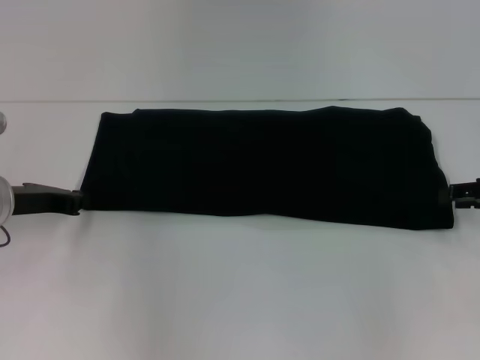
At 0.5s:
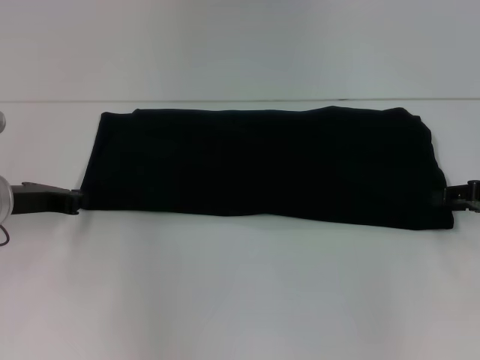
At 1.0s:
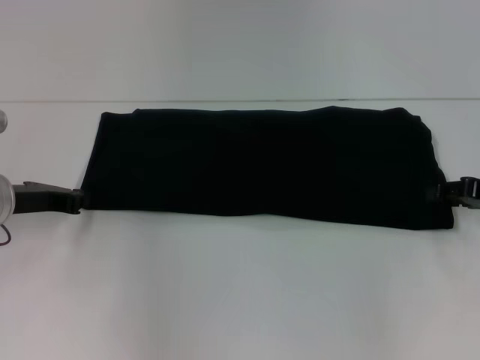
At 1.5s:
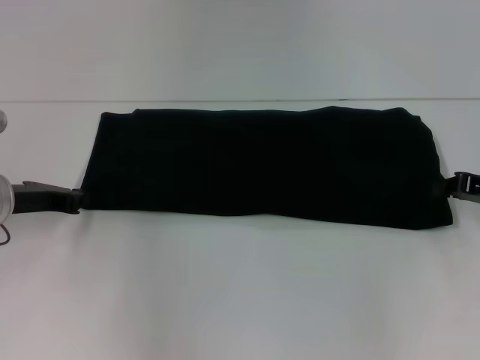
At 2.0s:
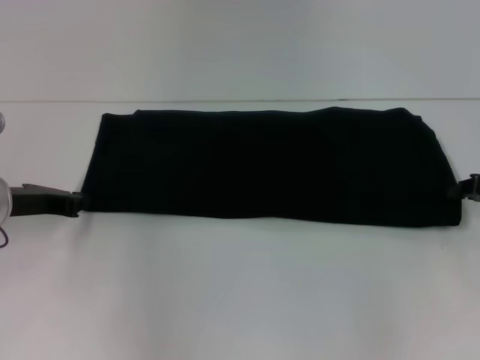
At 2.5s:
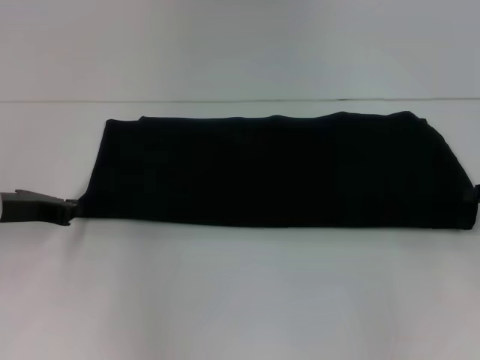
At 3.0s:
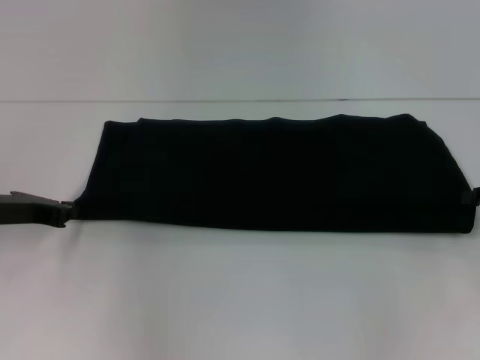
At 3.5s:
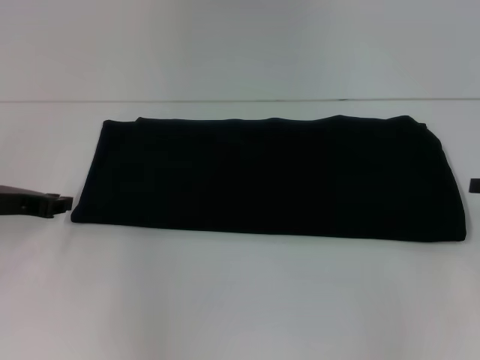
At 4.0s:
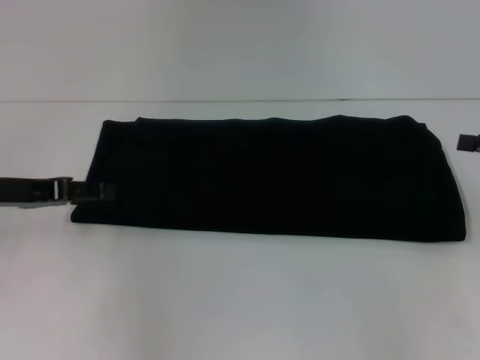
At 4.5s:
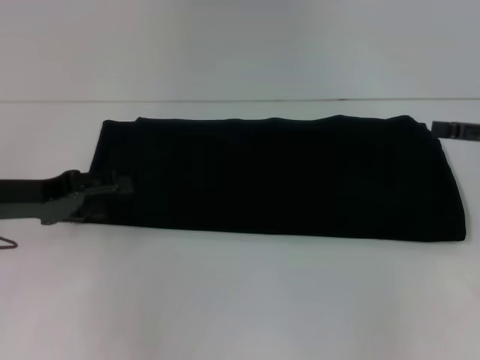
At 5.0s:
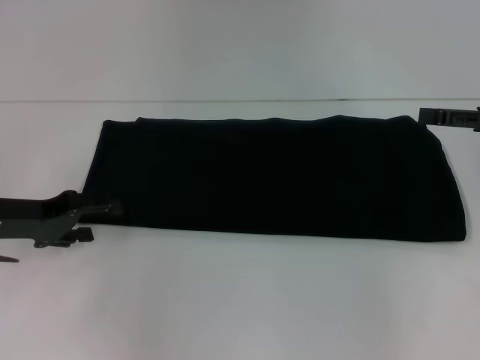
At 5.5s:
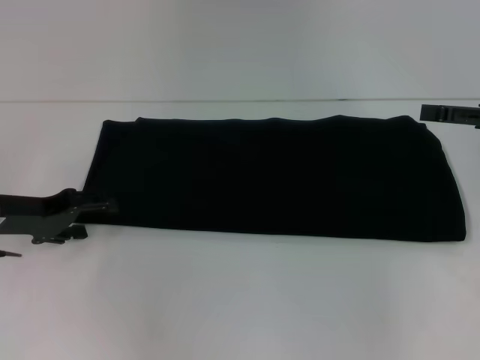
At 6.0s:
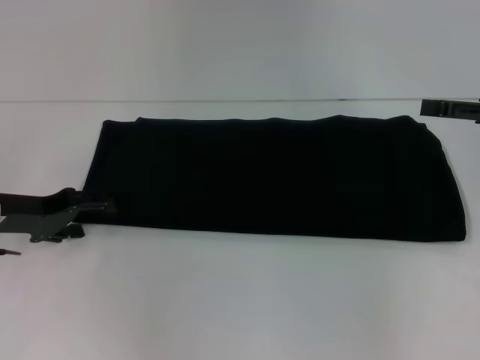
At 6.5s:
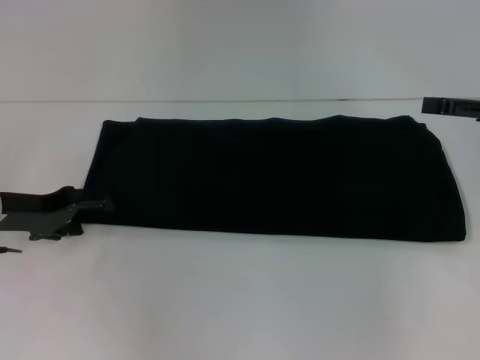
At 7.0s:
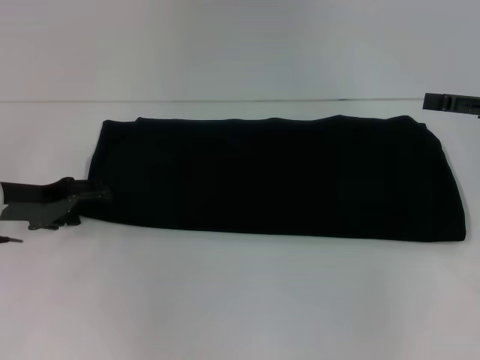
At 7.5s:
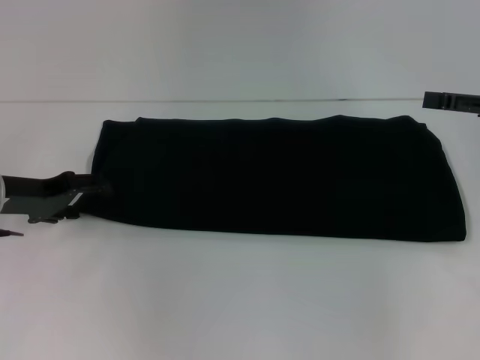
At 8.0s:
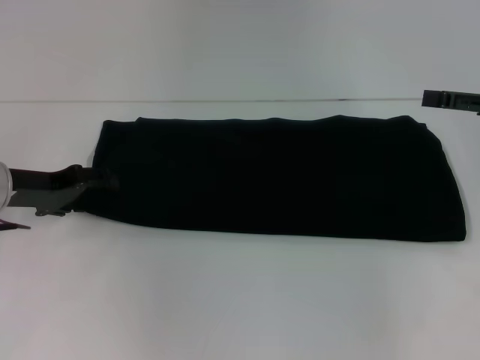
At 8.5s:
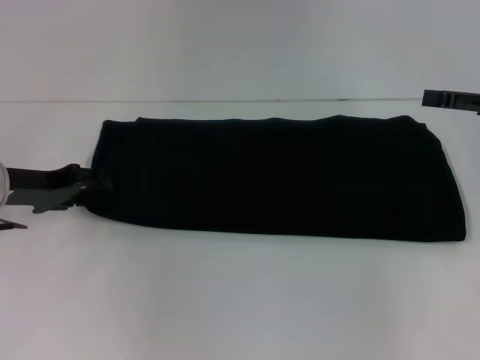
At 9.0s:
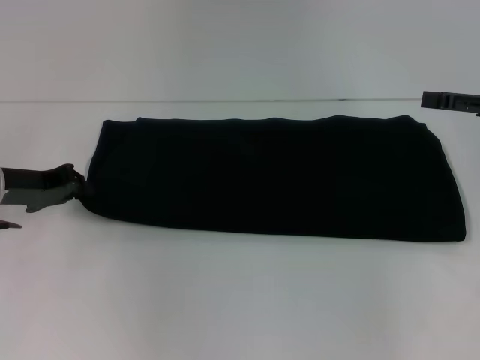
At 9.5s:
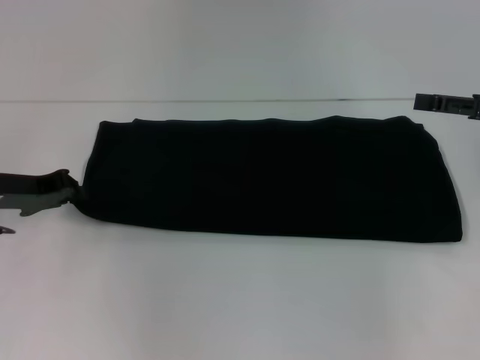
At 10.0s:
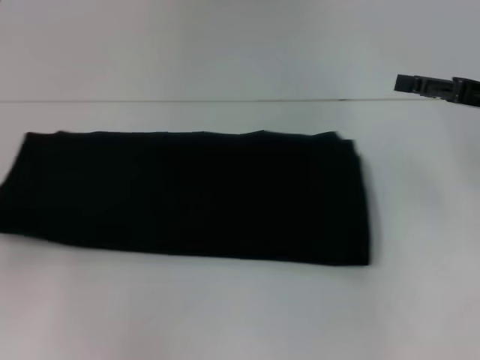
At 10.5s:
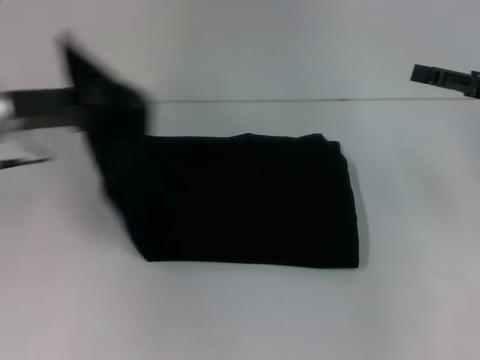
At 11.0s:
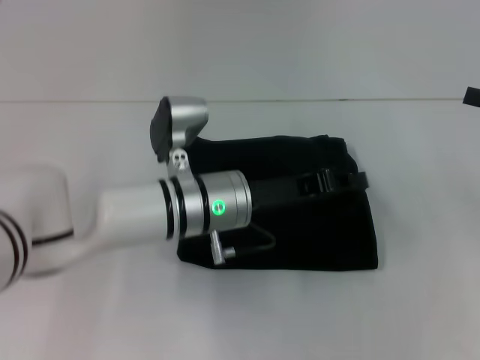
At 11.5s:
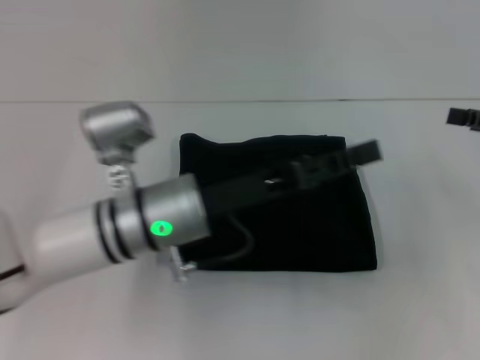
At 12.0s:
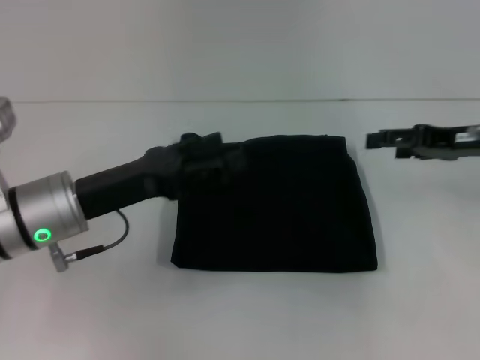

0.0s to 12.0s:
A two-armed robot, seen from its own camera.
Step, 0.0s to 11.0s: Fold the clothes with your left hand.
0.0s to 2.0s: The right gripper closes its fingers.
2.0s to 4.0s: The right gripper is displaced upward by roughly 5 cm, and opens up, while the left gripper ends up roughly 5 cm from where it was, and opens its fingers.
4.0s to 6.0s: The right gripper ends up approximately 5 cm from where it was. Meanwhile the left gripper opens up.
6.0s to 8.0s: The grippers make only small movements.
8.0s to 10.0s: The left gripper goes approximately 10 cm to the left and backward, and closes.
10.0s to 12.0s: The right gripper moves approximately 5 cm to the right and comes back. The left gripper shifts about 20 cm to the right, and opens its fingers.

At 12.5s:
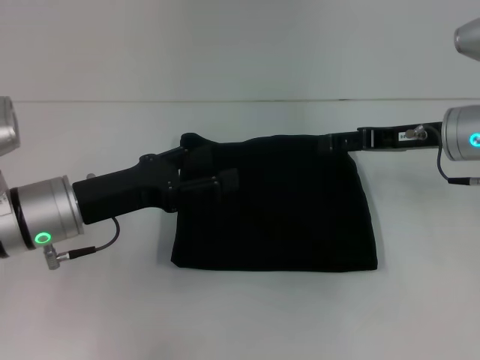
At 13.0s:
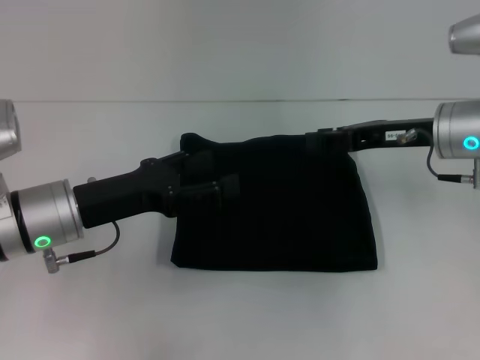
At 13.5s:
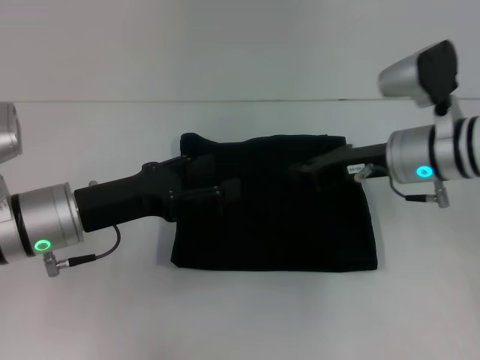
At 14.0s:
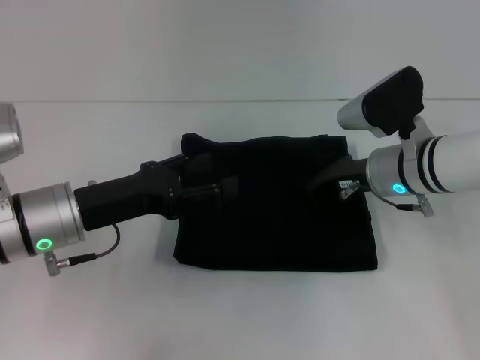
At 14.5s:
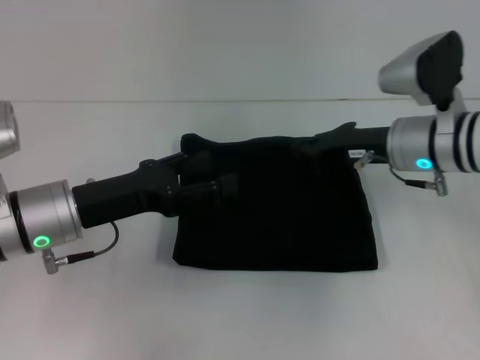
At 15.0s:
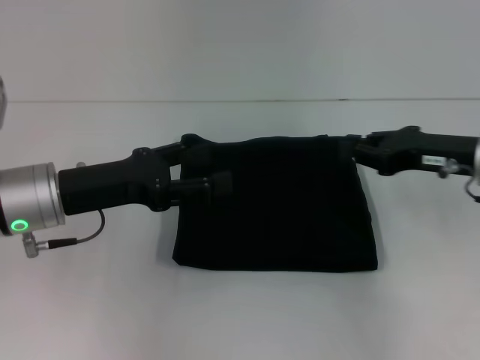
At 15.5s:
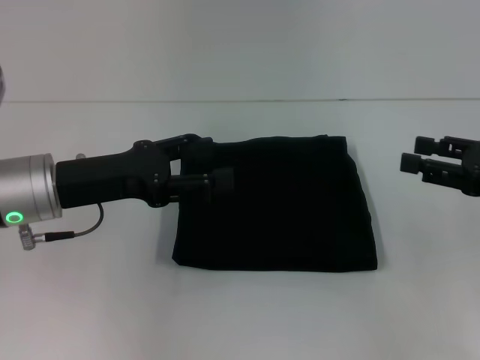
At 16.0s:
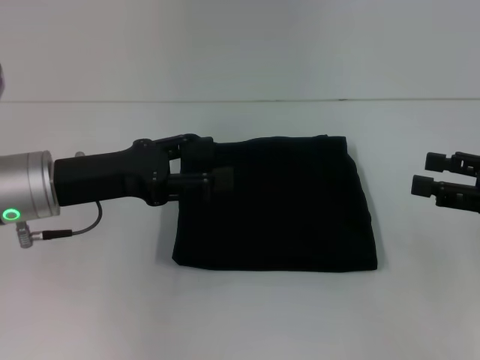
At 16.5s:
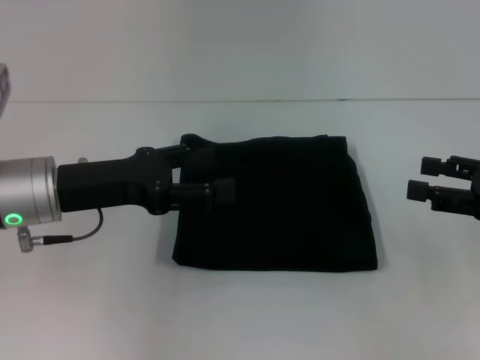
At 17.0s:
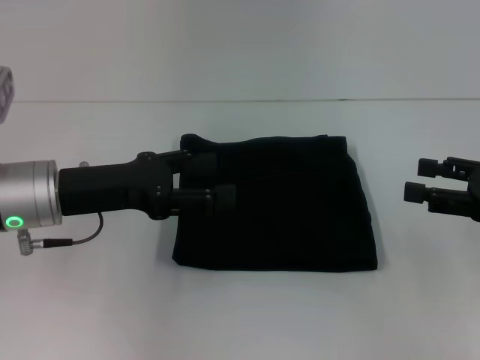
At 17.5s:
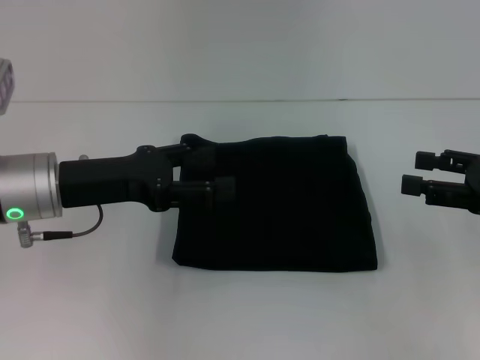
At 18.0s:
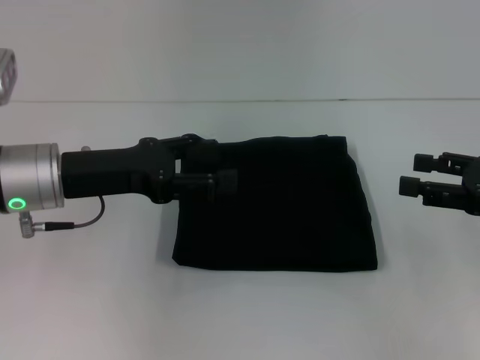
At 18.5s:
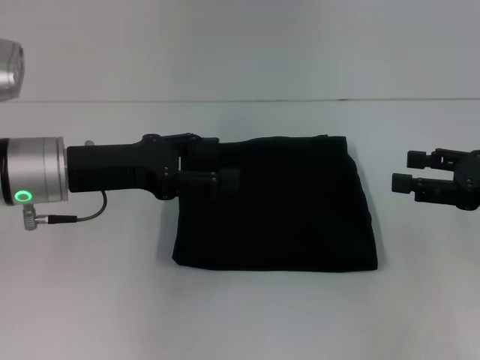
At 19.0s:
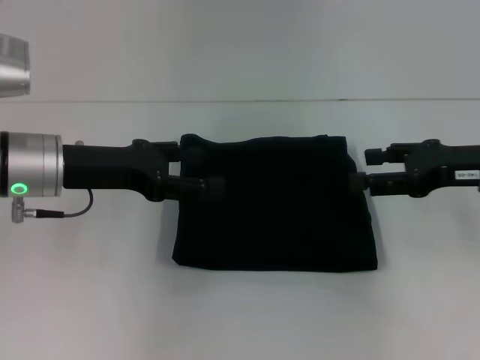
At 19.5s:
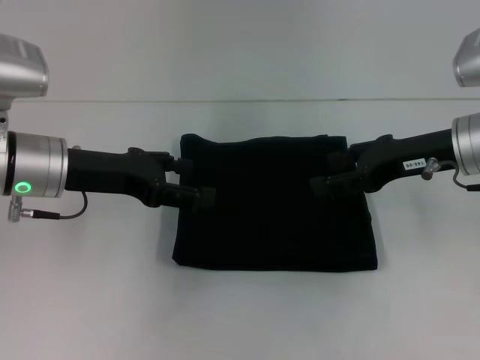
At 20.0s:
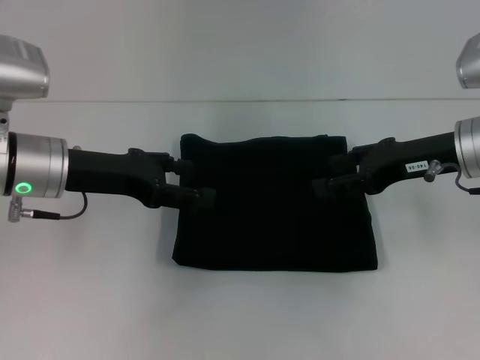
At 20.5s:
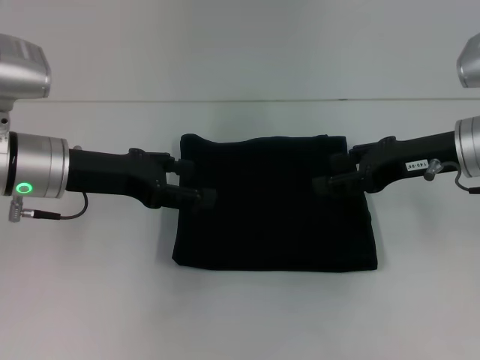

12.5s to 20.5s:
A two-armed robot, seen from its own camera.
12.5s to 14.5s: The right gripper shifts some 5 cm to the left, and closes its fingers.
14.5s to 16.5s: The right gripper heads to the right and backward, covering about 20 cm, and opens its fingers.
16.5s to 18.5s: The grippers stay close to where they were, moving slightly.
18.5s to 20.5s: The right gripper travels to the left and forward by approximately 10 cm.

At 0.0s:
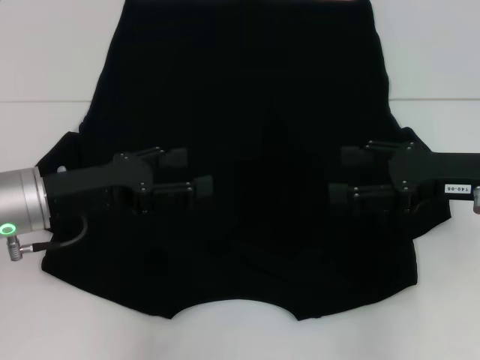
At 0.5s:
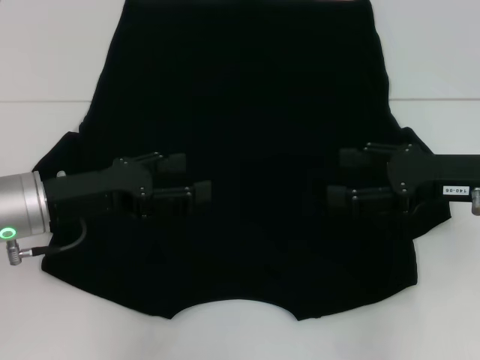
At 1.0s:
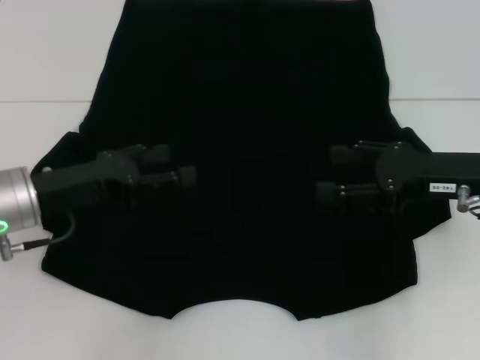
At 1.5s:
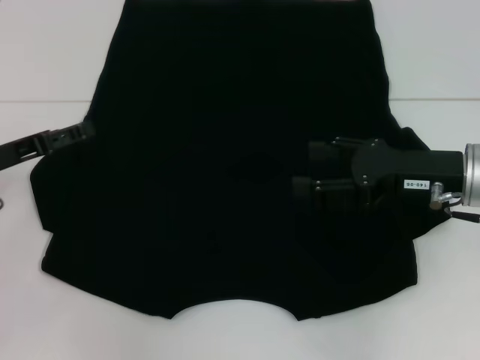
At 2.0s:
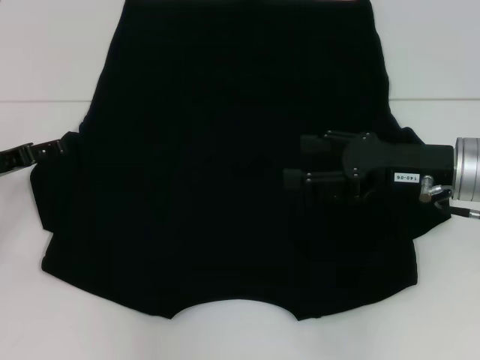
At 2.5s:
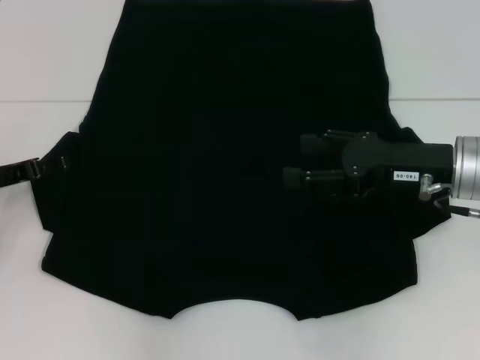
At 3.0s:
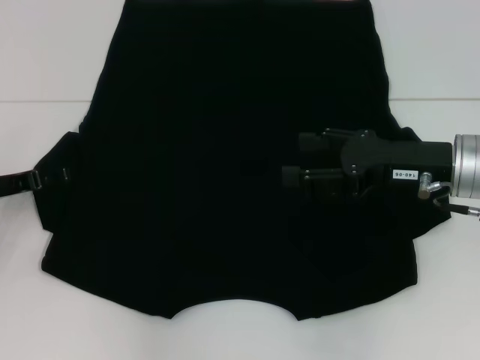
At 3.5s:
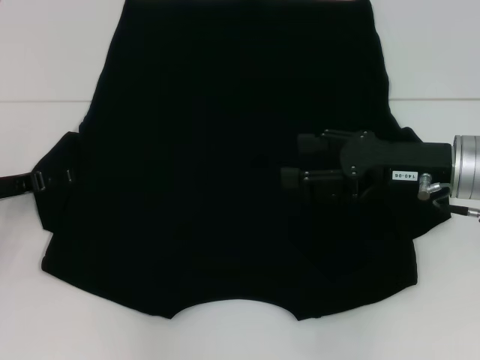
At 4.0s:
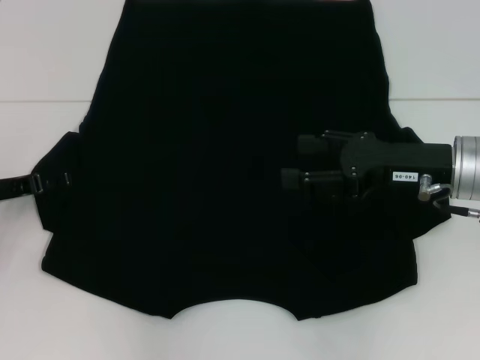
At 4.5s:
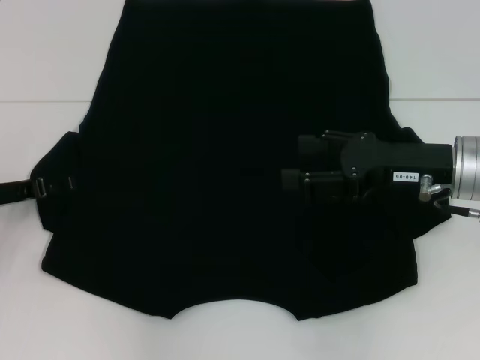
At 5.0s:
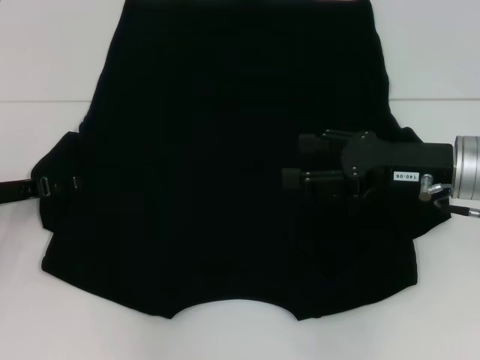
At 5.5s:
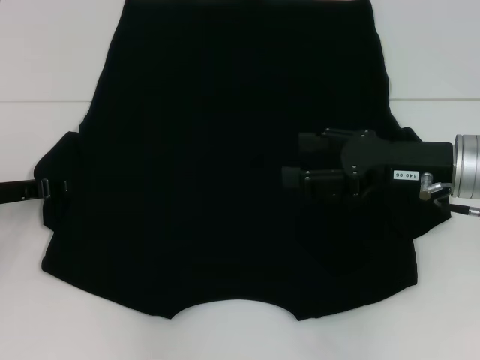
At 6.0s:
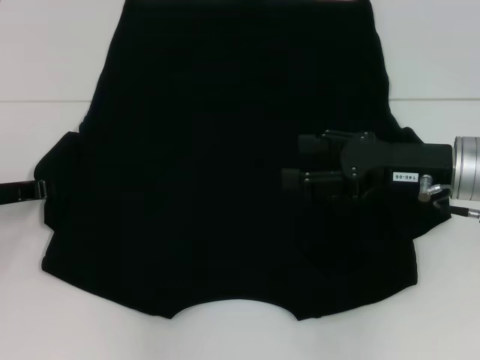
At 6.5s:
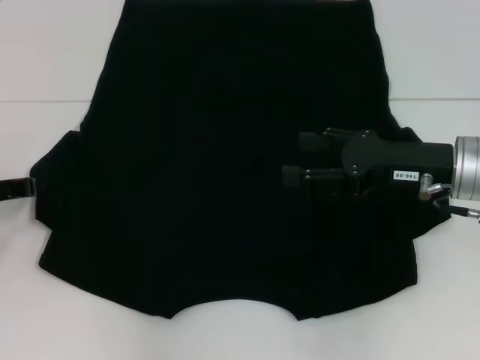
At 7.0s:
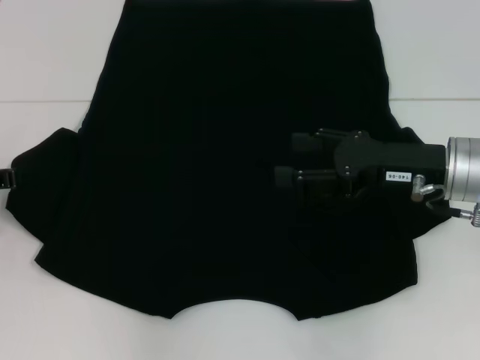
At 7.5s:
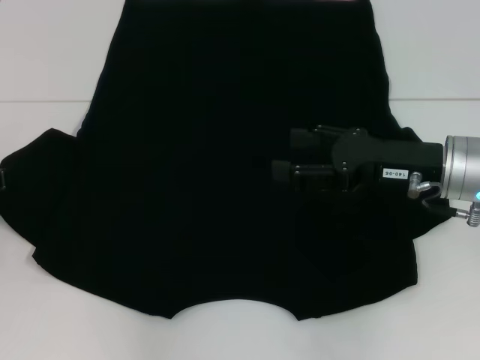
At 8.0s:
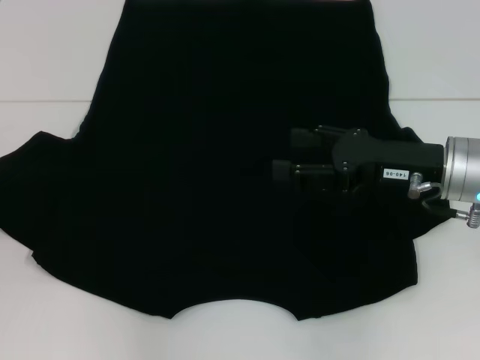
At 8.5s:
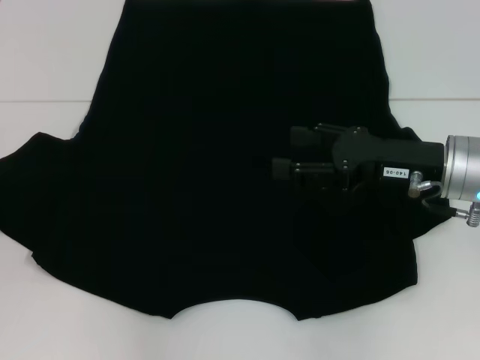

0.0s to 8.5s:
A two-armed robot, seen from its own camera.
0.0s to 2.0s: The left gripper heads to the left, covering some 10 cm.
2.0s to 4.0s: The grippers make only small movements.
6.5s to 8.5s: The grippers make only small movements.
